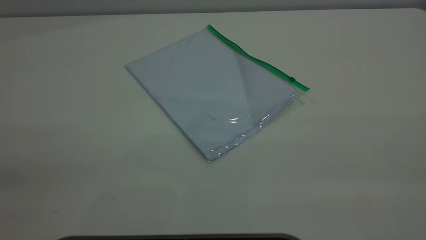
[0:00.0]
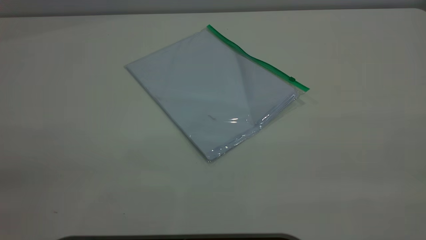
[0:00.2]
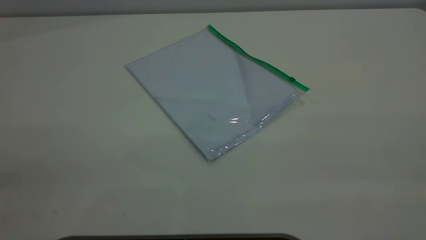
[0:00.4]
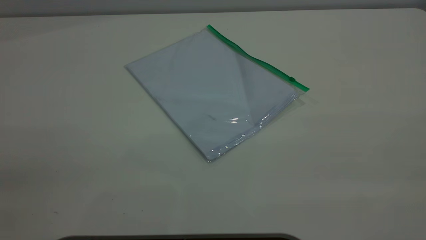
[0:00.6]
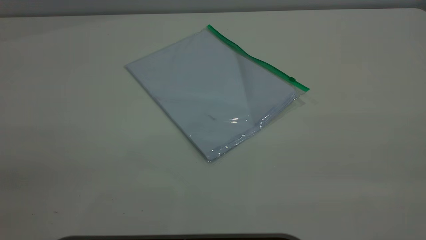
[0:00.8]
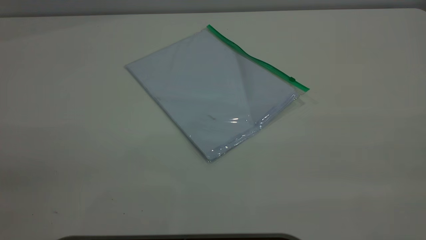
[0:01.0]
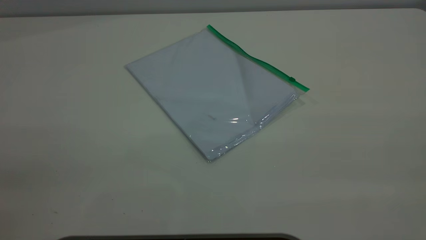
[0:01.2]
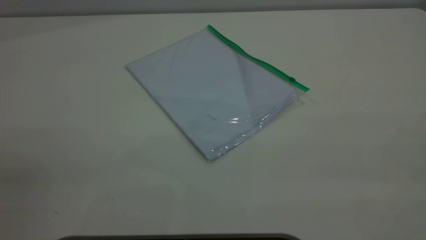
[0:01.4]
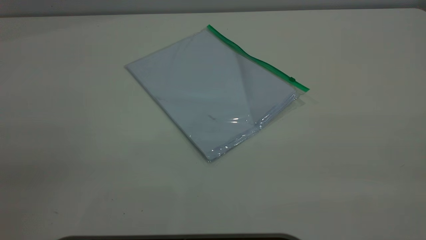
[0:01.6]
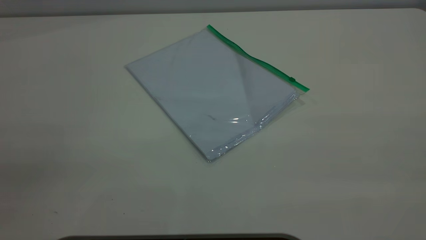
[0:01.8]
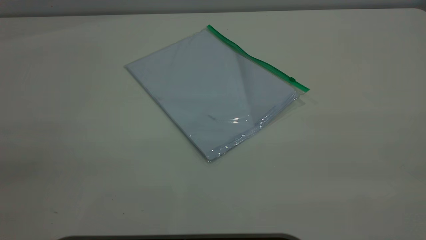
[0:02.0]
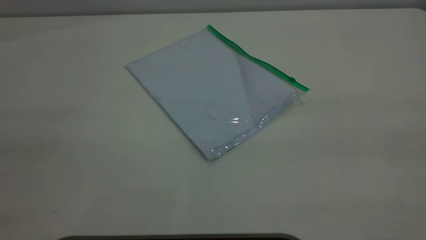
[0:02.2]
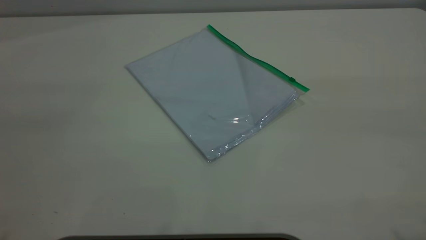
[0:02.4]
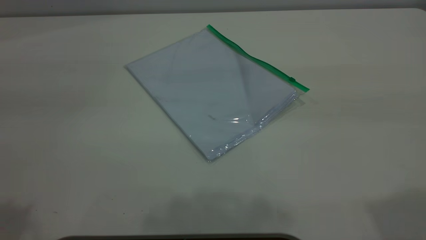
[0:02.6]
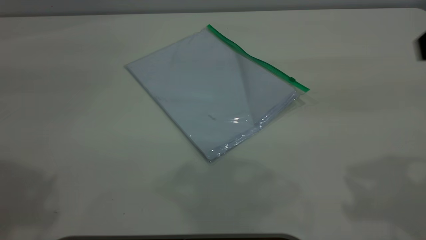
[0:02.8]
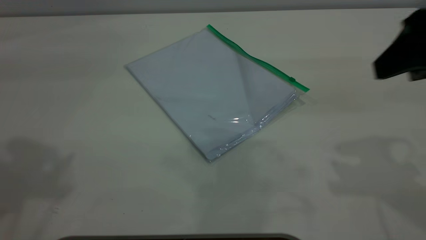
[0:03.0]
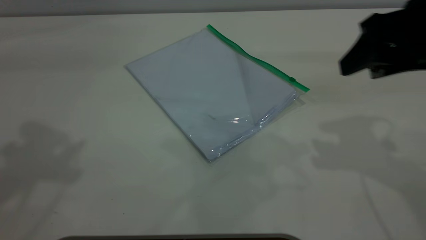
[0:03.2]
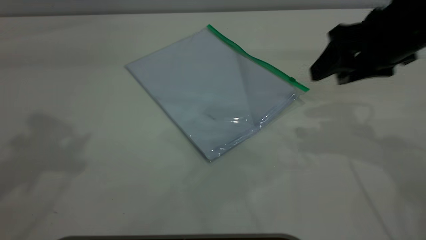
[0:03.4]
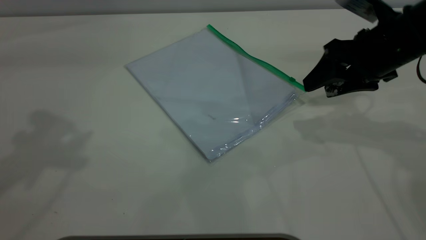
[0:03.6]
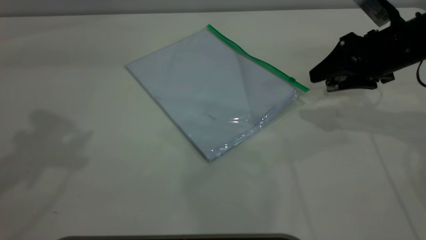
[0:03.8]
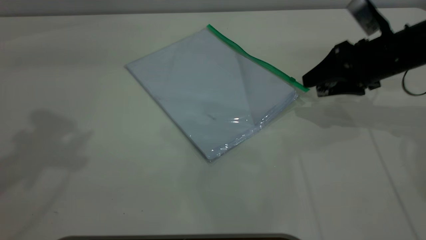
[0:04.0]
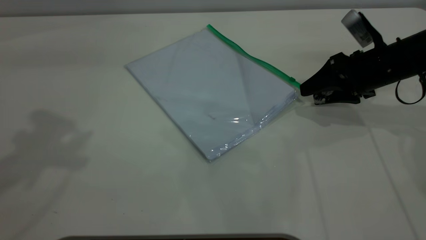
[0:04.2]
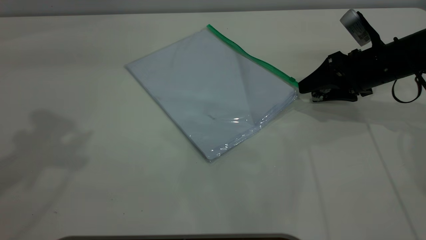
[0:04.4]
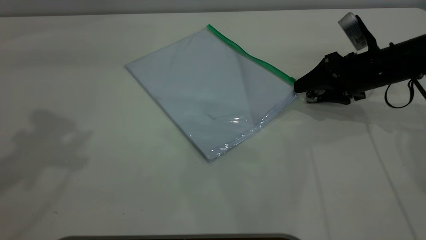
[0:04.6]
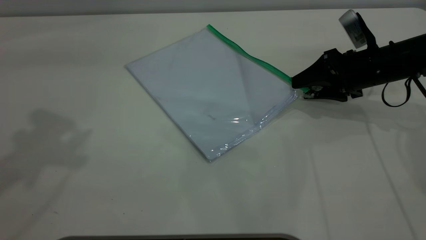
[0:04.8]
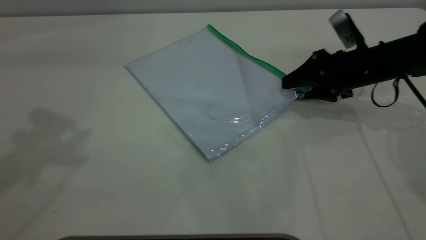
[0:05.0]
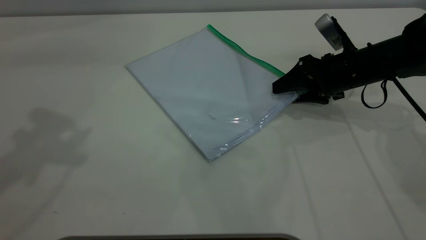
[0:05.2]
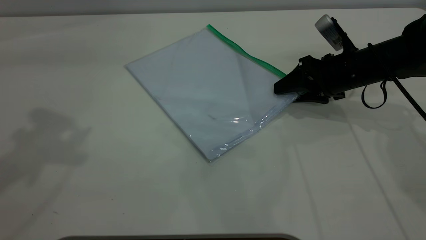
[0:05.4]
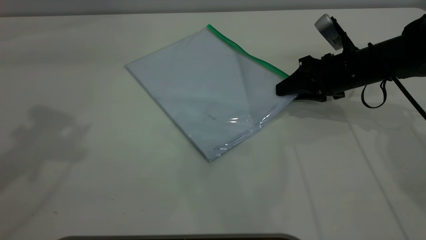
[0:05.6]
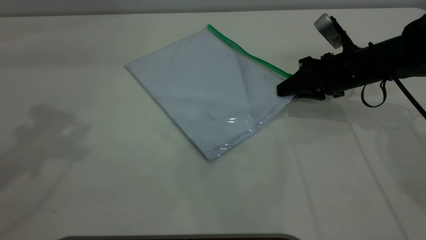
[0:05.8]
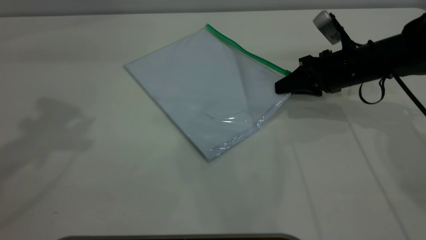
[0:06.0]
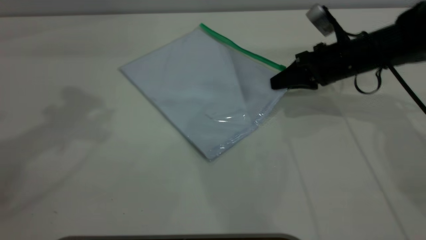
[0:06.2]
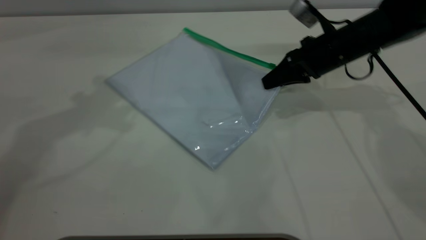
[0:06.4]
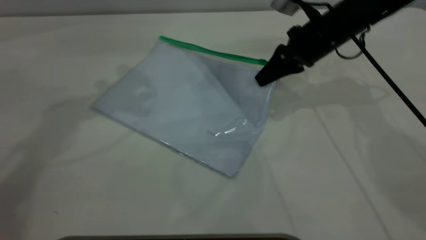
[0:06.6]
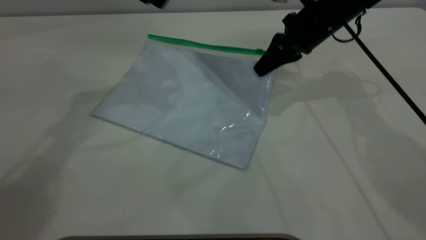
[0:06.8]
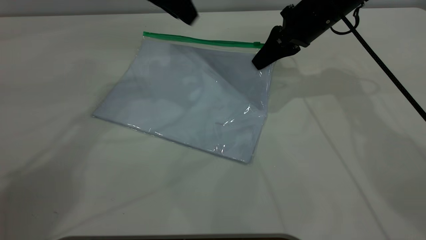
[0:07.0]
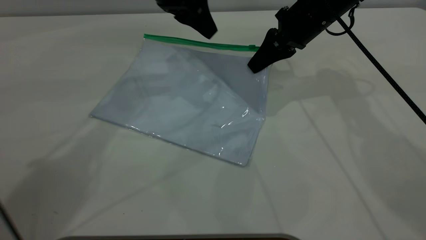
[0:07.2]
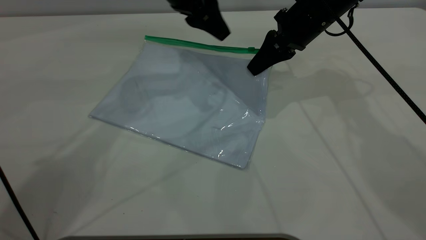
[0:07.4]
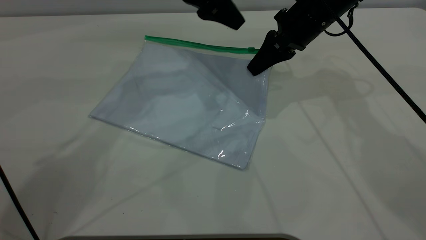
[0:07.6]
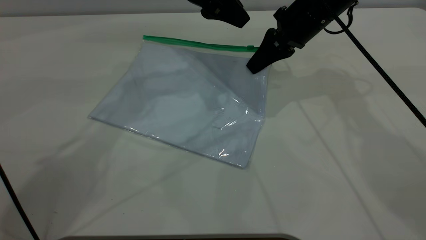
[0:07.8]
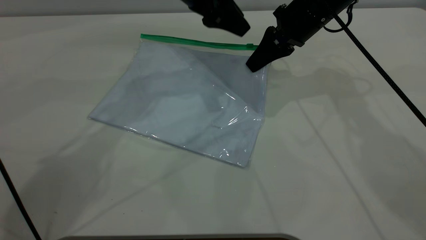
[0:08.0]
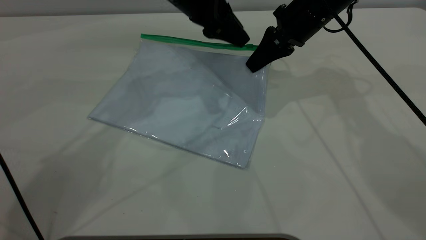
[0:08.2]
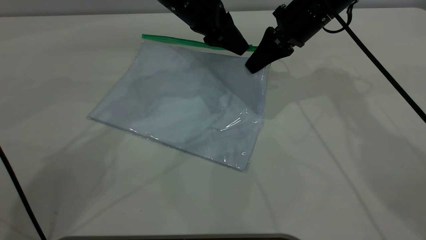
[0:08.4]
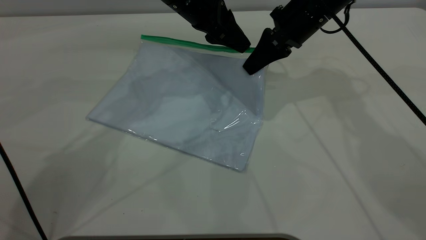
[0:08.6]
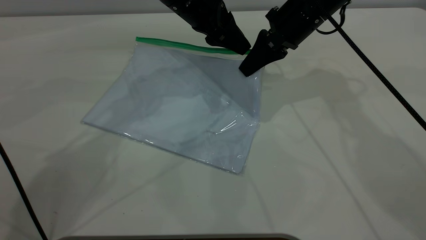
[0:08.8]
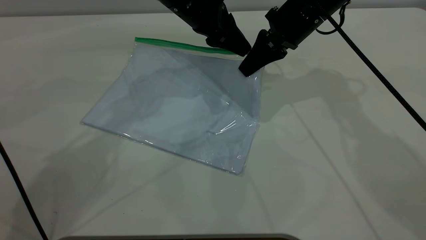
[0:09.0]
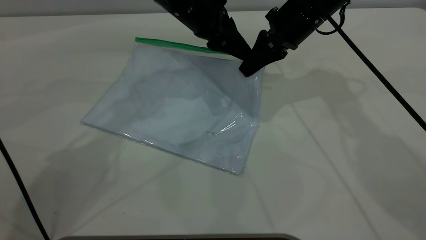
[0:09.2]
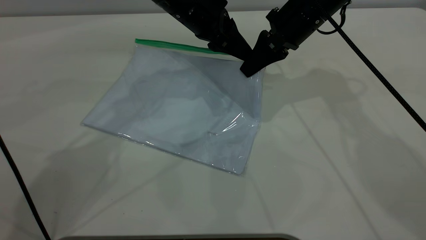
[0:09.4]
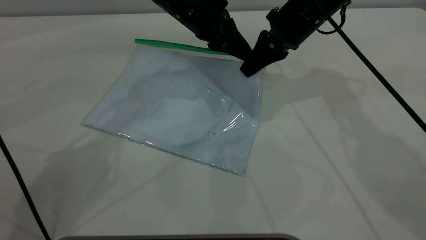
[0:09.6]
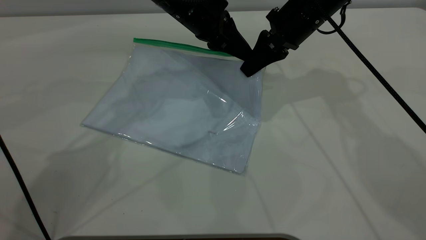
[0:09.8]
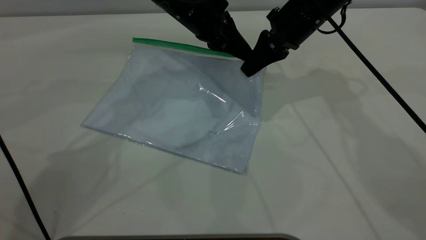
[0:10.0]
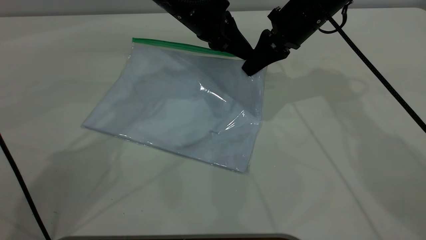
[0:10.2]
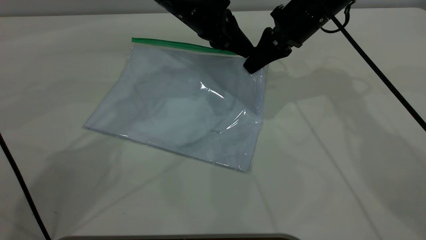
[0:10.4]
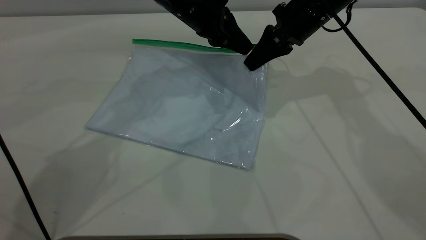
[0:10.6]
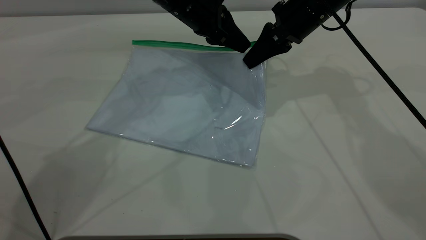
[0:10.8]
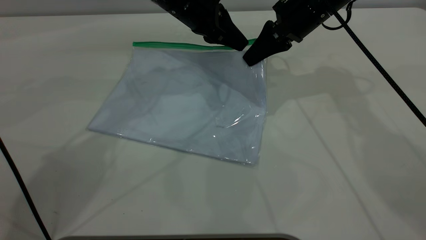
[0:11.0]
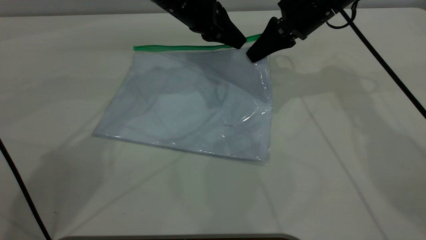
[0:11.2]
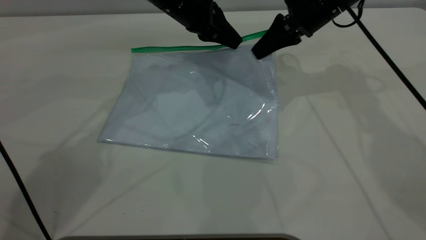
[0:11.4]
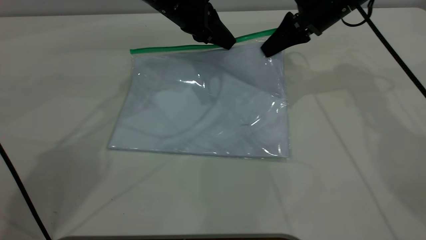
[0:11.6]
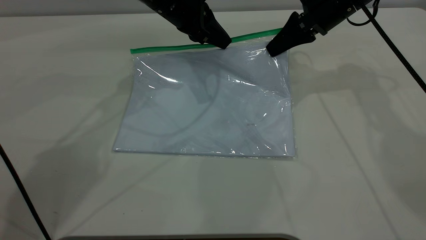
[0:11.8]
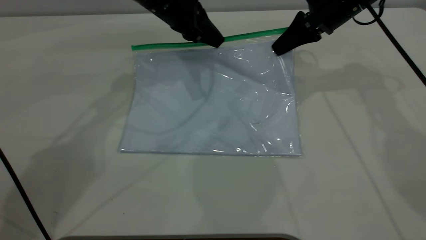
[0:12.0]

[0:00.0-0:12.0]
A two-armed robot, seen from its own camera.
Step, 0:00.0 to 0:06.2: Pick up the transparent plastic bag with the right gripper.
0:01.6 to 0:03.0: The right gripper moves forward and downward, about 25 cm.
0:03.0 to 0:04.4: The right gripper travels downward and forward by approximately 25 cm.
0:04.4 to 0:06.0: The right gripper closes its fingers.
0:06.0 to 0:07.6: The right gripper shifts some 10 cm upward and to the left, while the left gripper shifts some 30 cm to the right, downward and forward.
0:07.6 to 0:09.0: The grippers make only small movements.
0:09.0 to 0:10.4: The left gripper closes up.
0:10.4 to 0:12.0: The right gripper goes roughly 5 cm to the right; the left gripper heads to the left, covering roughly 5 cm.

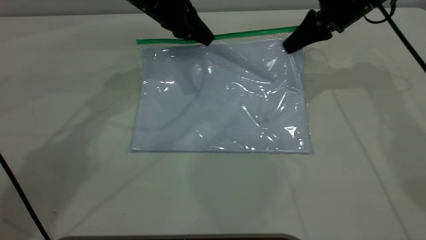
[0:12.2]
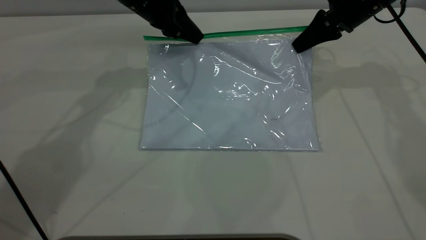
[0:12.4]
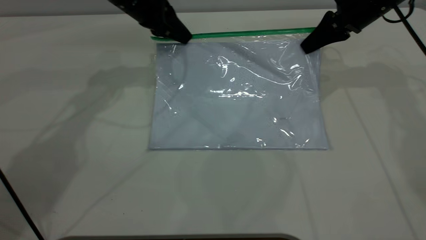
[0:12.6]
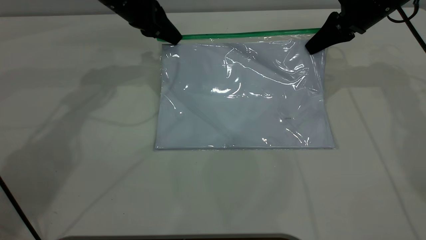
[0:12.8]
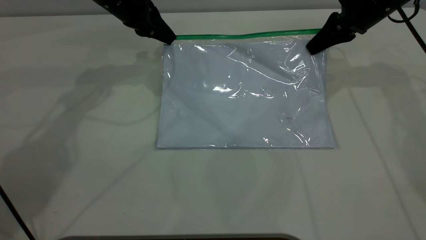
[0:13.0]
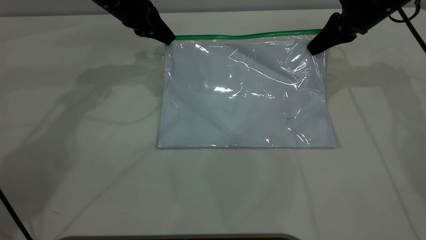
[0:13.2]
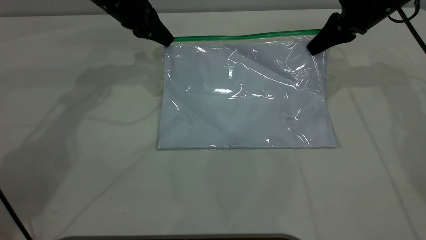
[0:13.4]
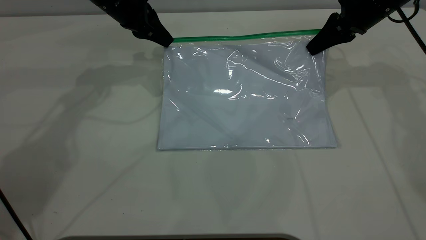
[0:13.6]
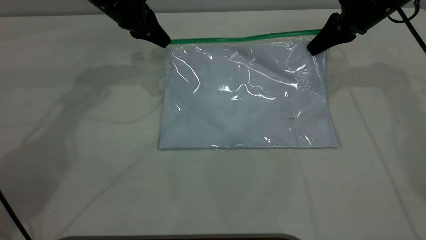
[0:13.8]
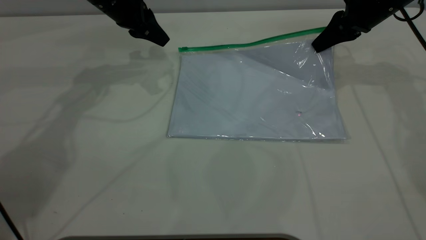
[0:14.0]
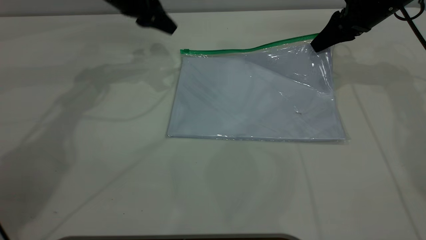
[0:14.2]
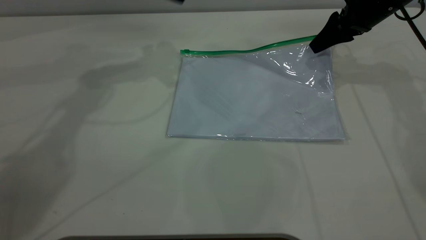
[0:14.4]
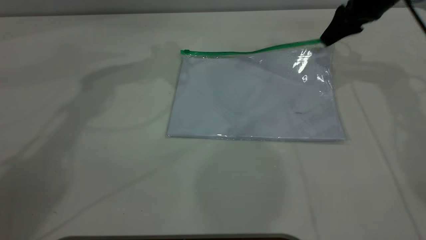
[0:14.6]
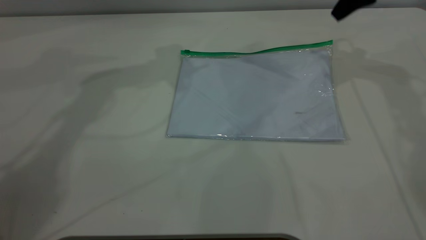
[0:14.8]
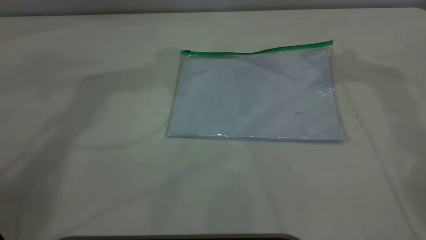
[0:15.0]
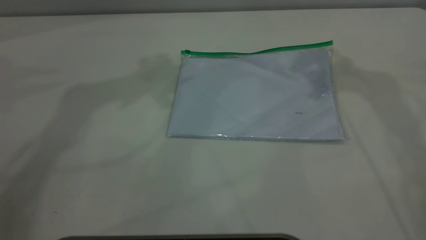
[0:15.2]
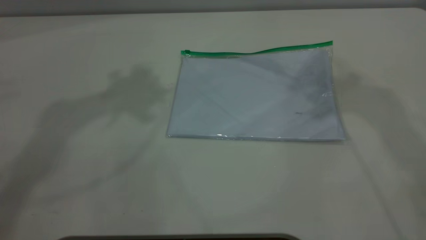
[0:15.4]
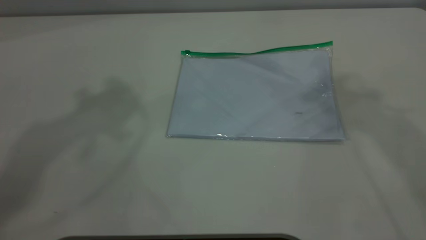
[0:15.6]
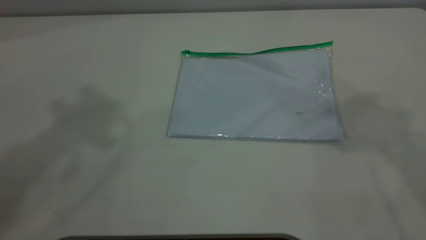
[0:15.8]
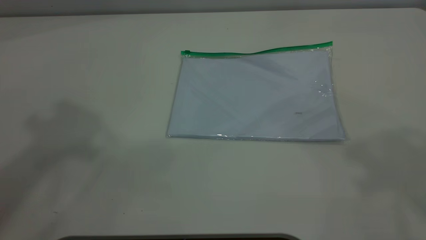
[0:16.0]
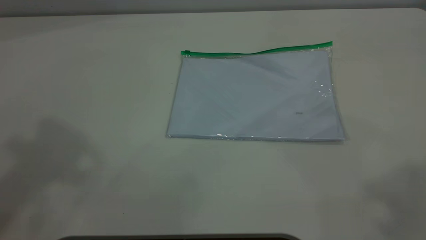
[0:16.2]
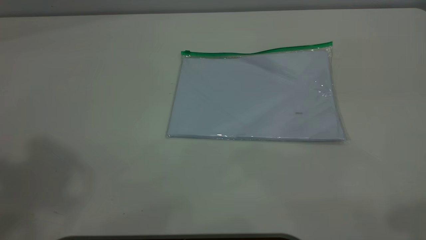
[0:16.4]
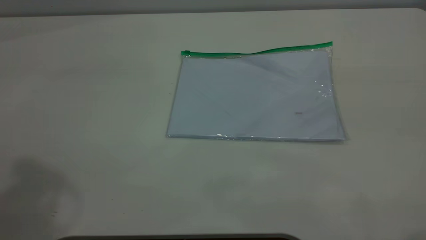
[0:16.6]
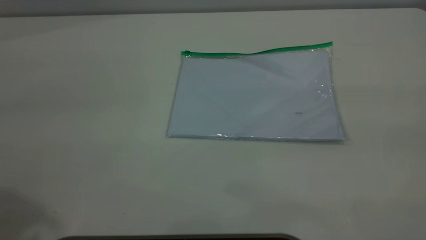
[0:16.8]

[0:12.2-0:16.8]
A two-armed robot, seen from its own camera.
Step, 0:14.0 to 0:14.6: Place the transparent plastic bag.
0:12.2 to 0:13.8: The left gripper goes about 5 cm to the left.
0:13.8 to 0:15.2: The two grippers go roughly 25 cm upward. The right gripper opens up; the left gripper opens.
